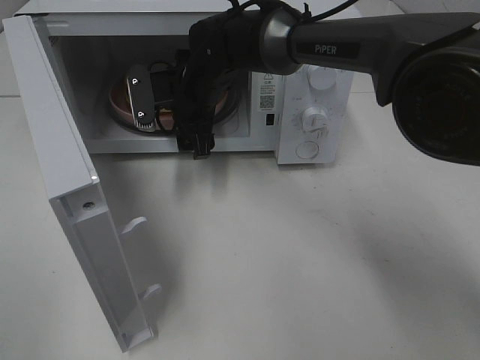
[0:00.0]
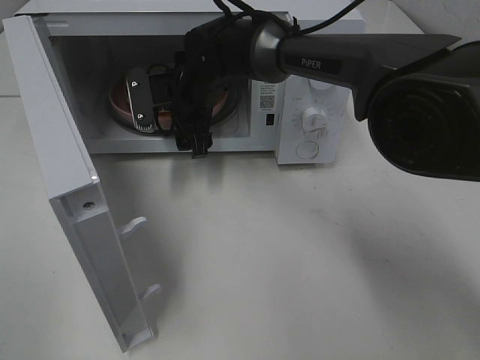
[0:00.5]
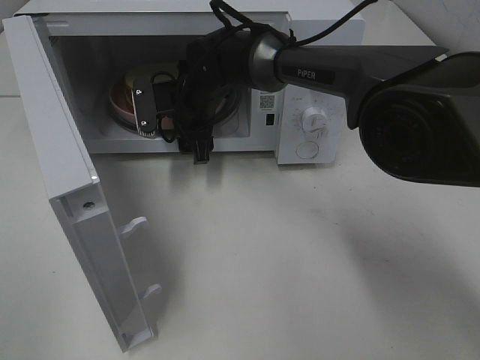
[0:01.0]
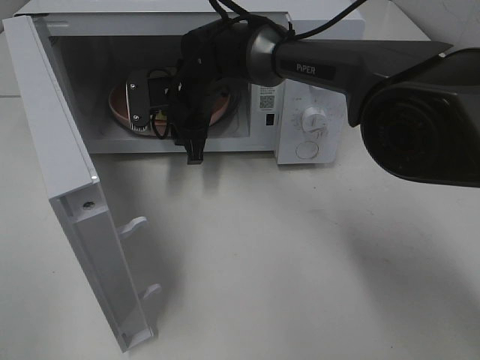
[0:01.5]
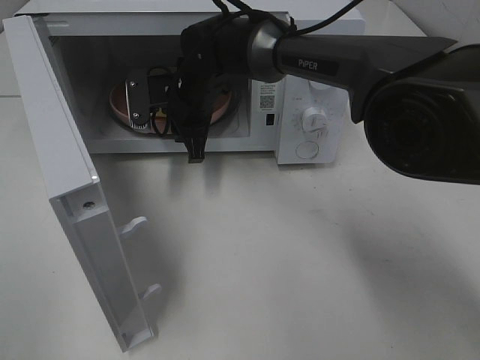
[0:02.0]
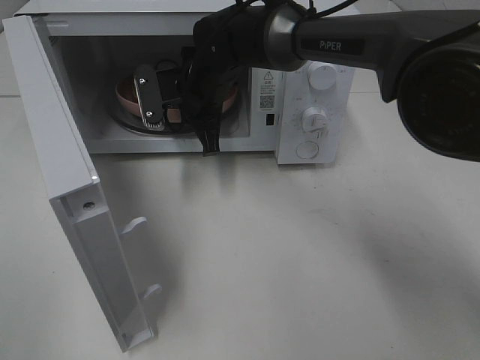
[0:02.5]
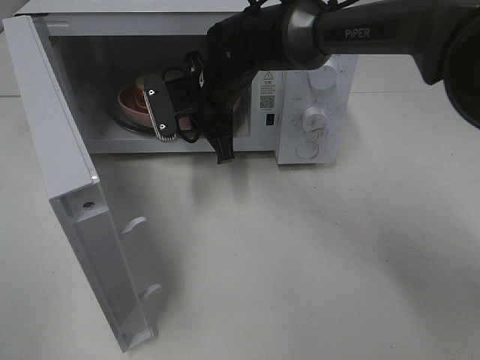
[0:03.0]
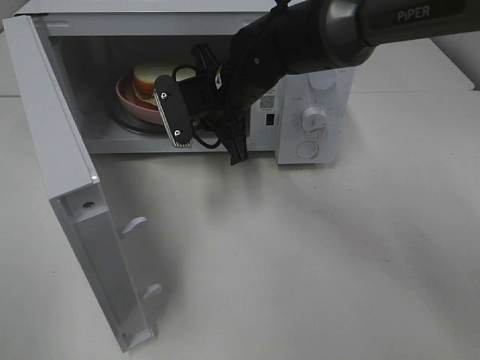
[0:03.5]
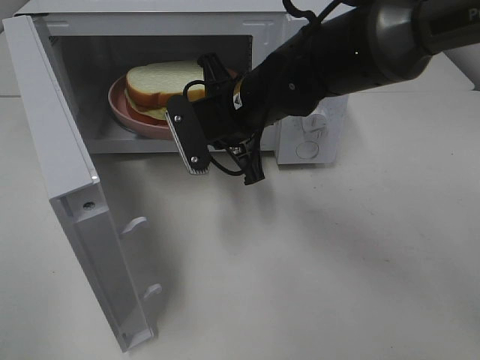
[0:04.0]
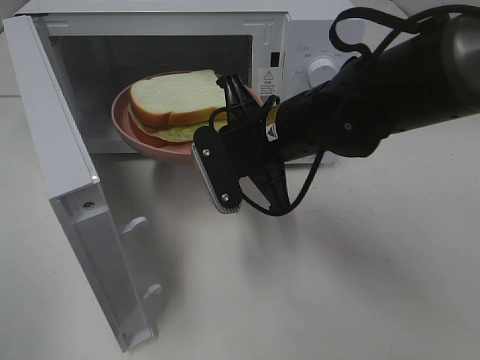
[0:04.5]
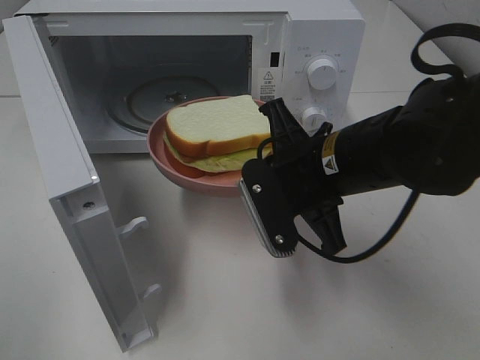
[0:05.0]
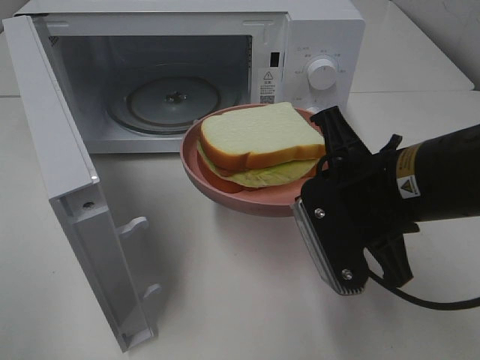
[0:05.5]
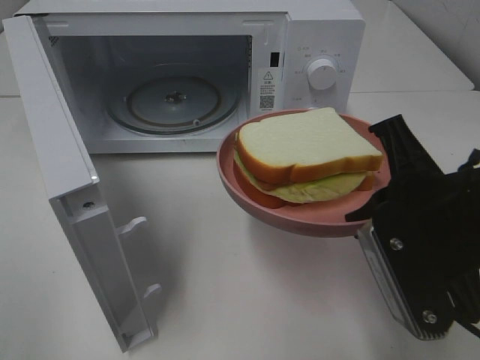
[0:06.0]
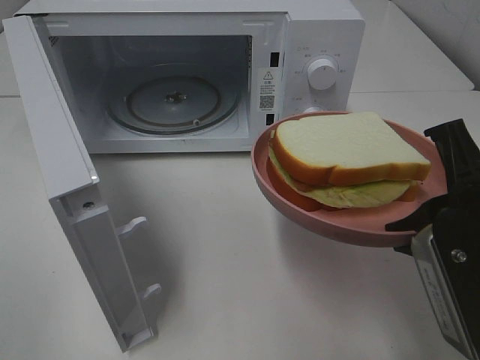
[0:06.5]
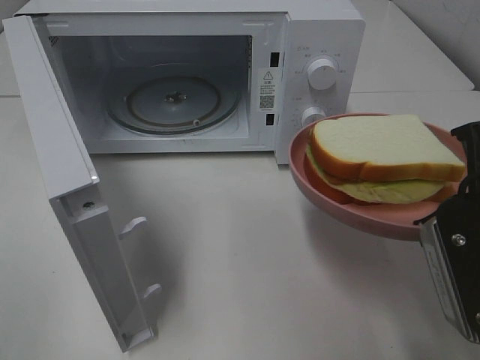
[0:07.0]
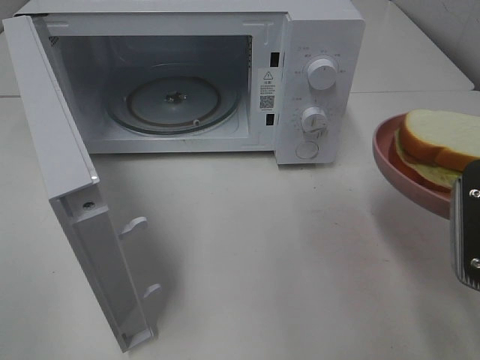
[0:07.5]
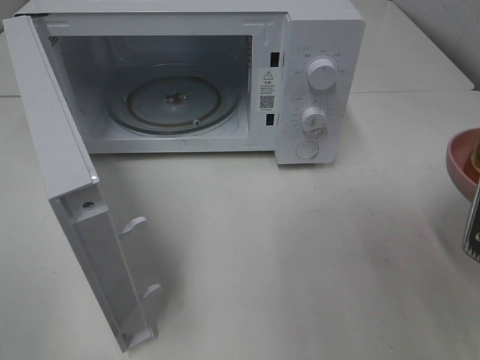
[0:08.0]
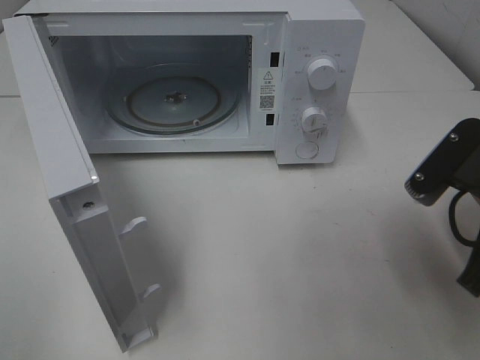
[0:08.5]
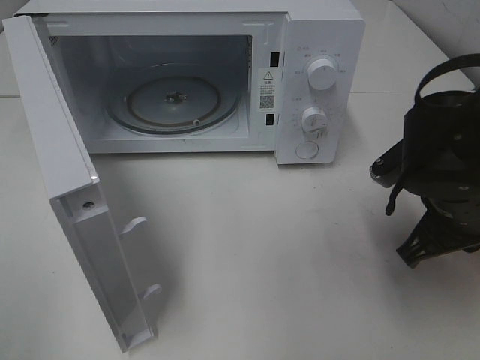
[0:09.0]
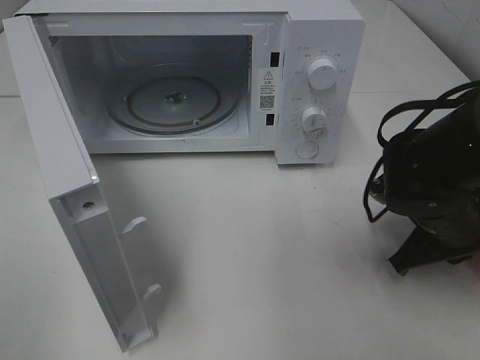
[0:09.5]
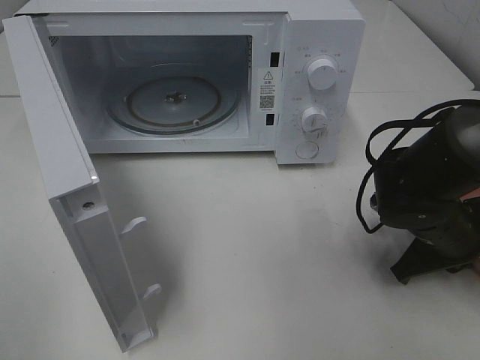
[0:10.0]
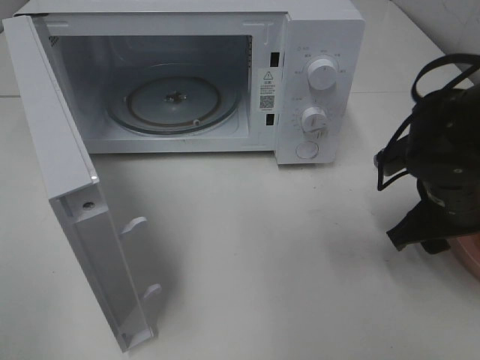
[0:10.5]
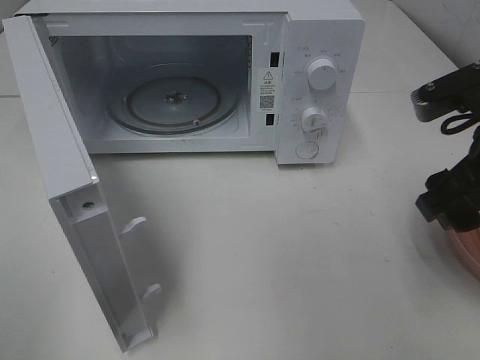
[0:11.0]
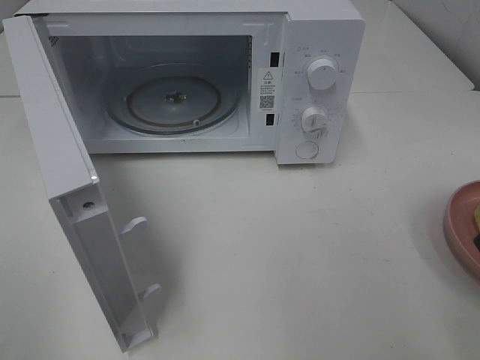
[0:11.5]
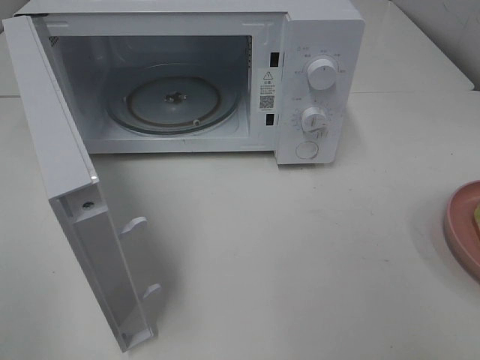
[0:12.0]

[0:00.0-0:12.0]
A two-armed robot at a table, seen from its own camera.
Task of the whole recording: Heat Sandwich.
Step, 0:01.5 to 0:10.5: Right hand: place the plate on the table.
0:00.0 to 0:02.0: The right gripper closes.
0:02.0 to 0:04.0: The right gripper heads backward and to the right, covering roughly 10 cm.
0:04.0 to 0:06.0: The right gripper goes some 25 cm backward and to the right.
0:06.0 to 0:08.0: The right gripper goes some 5 cm to the right.
0:08.0 to 0:10.0: The right gripper travels downward and forward by roughly 20 cm.
0:10.0 to 0:12.0: The right gripper goes some 30 cm upward and backward, and opens up.

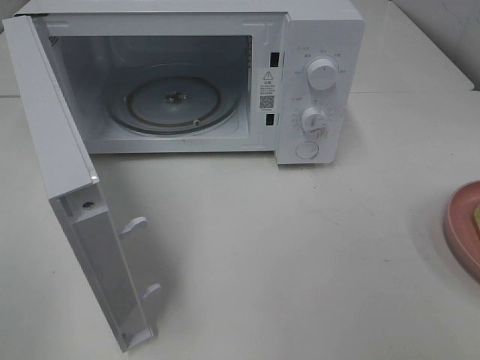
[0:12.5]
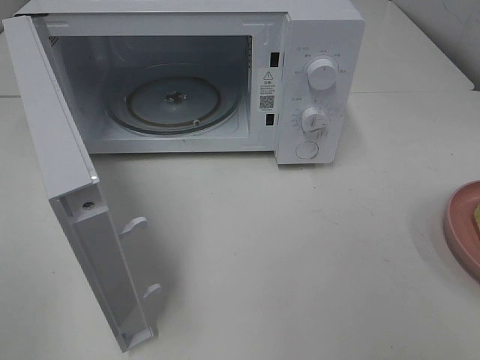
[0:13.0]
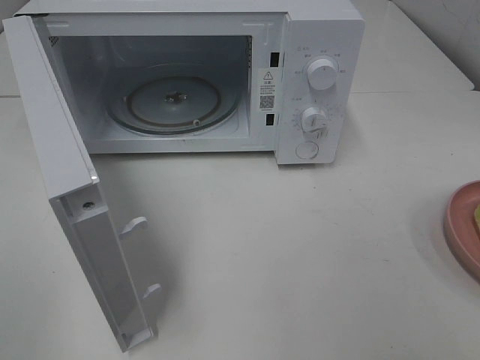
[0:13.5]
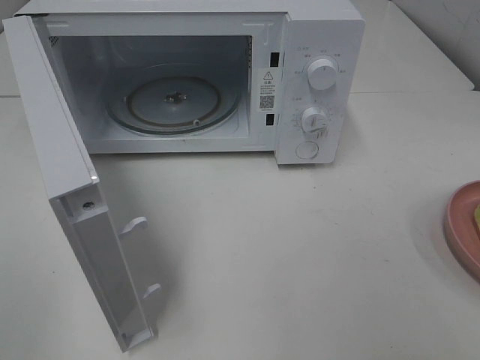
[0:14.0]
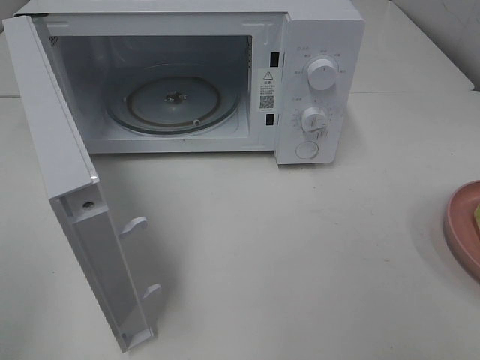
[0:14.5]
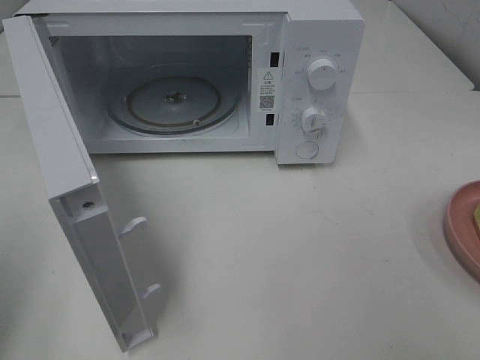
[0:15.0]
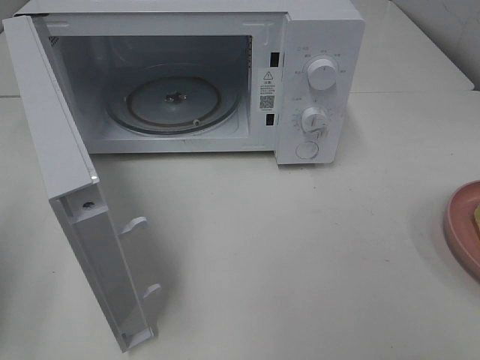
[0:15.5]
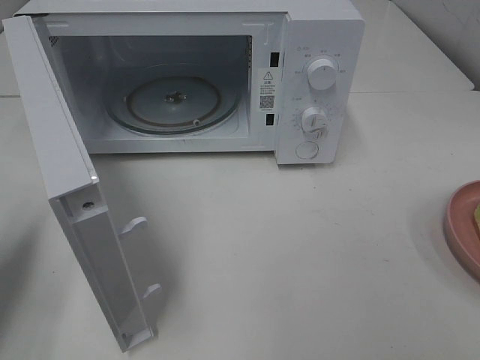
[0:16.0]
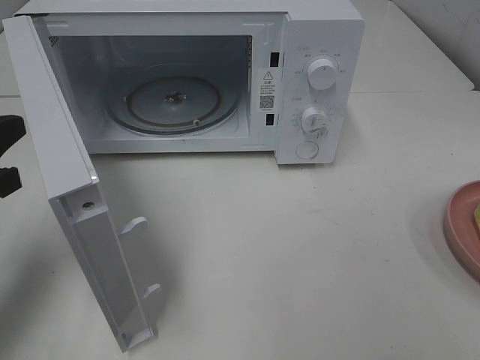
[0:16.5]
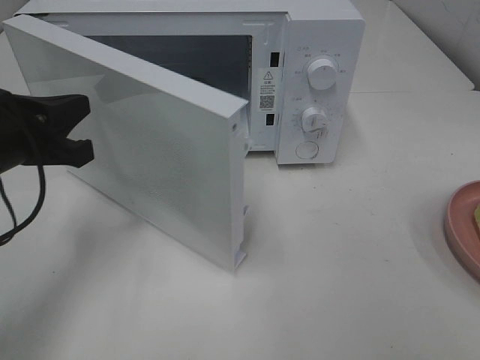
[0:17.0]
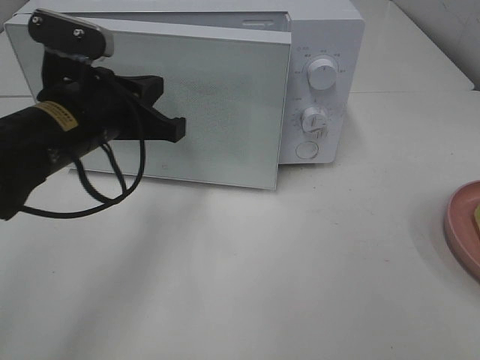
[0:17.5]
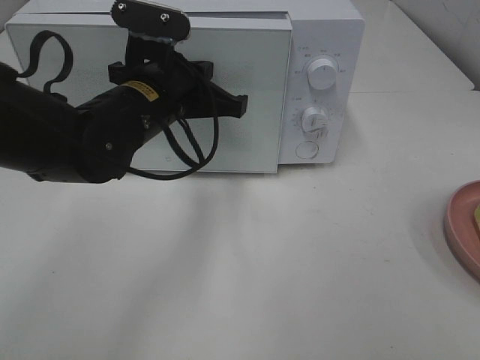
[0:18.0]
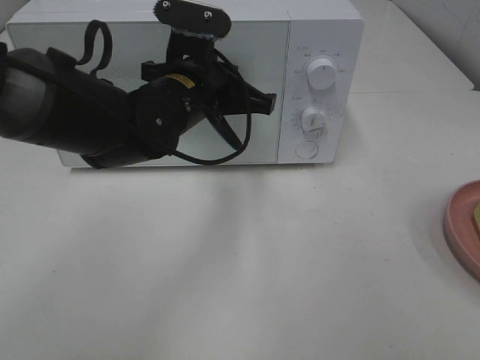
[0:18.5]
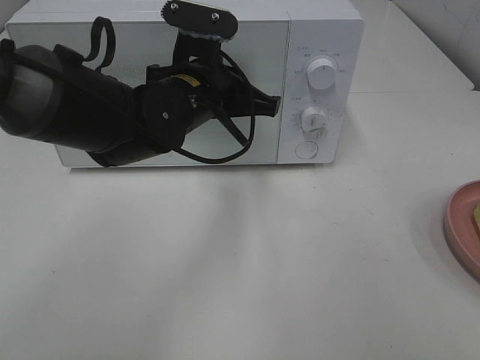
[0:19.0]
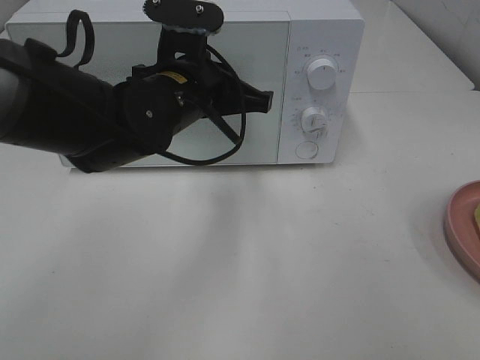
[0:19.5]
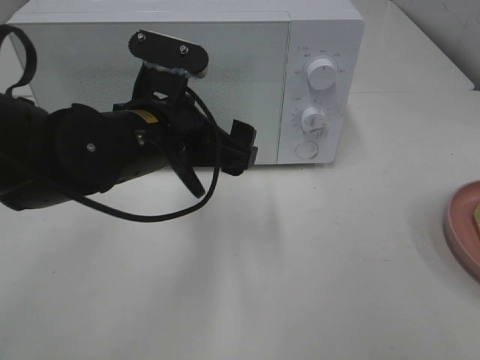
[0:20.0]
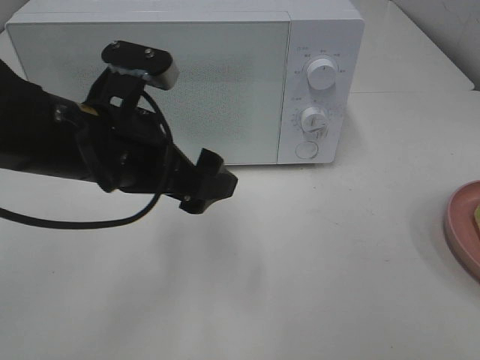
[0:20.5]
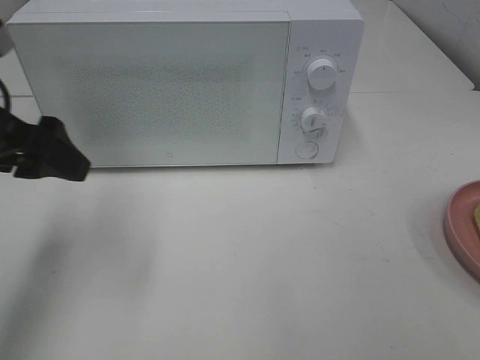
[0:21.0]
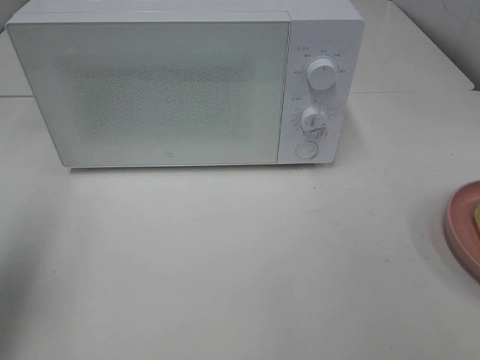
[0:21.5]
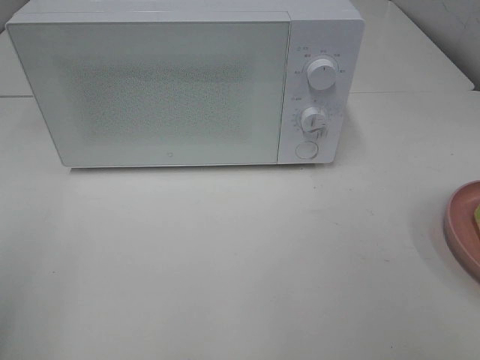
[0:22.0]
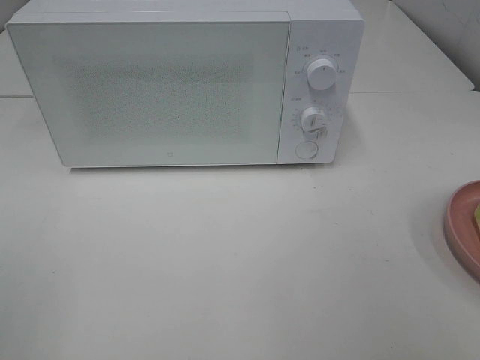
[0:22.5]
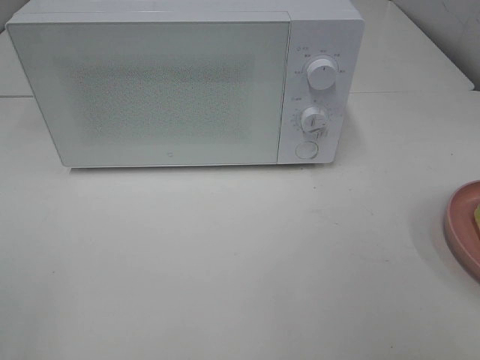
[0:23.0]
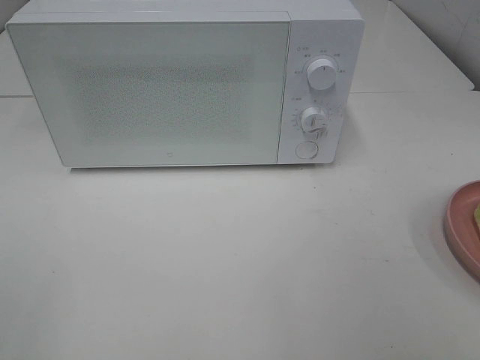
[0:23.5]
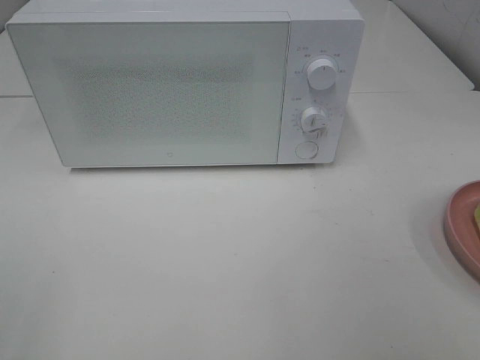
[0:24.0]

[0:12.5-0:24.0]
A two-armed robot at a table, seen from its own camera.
Task of the whole recording: Heat Sandwich.
Step, 0:12.5 to 0:19.5: Left hand: close the microwave door.
0:14.5 to 0:16.5: The left gripper moves forward and downward, roughly 20 cm, and closes its fingers.
0:16.5 to 0:18.5: The left gripper heads to the right and forward, covering about 25 cm.
0:18.5 to 0:20.0: The left gripper moves backward, about 10 cm, and opens its fingers.
0:20.0 to 0:22.0: The left gripper moves to the left and backward, about 30 cm.

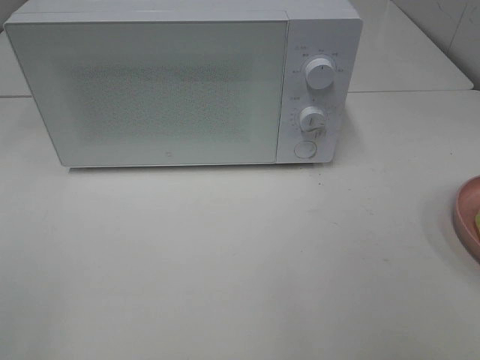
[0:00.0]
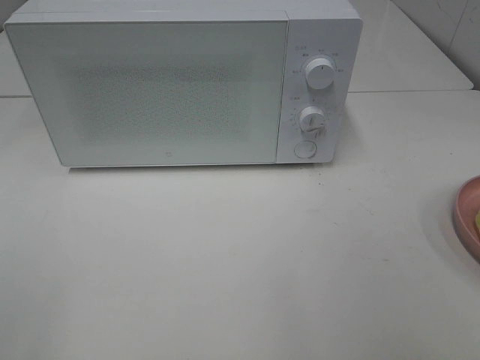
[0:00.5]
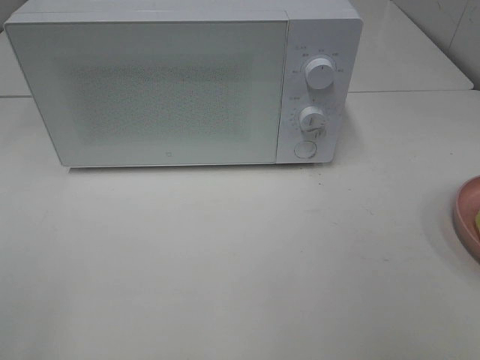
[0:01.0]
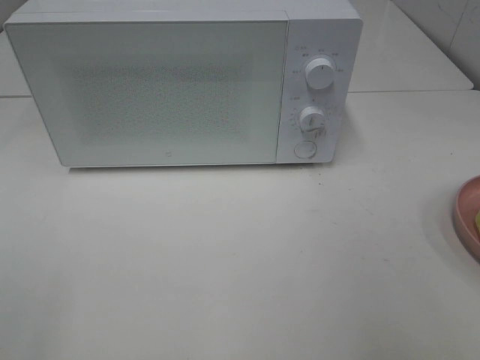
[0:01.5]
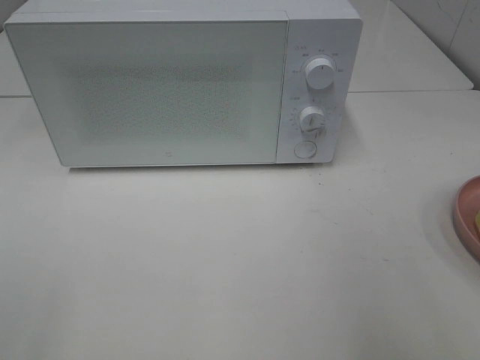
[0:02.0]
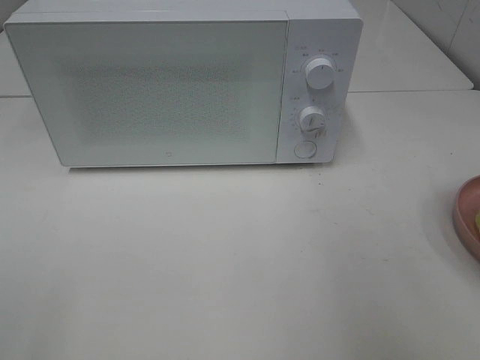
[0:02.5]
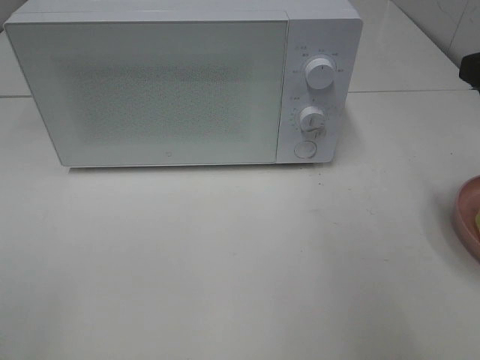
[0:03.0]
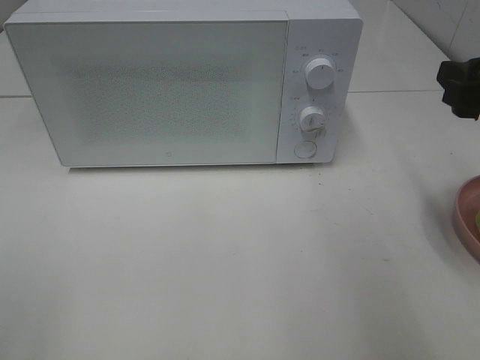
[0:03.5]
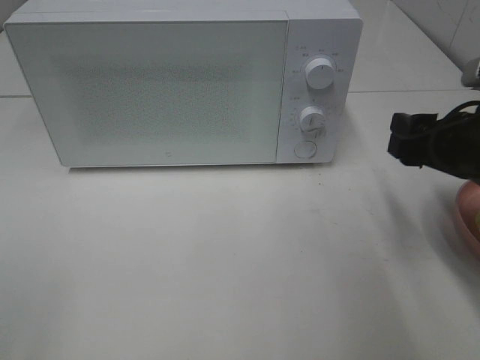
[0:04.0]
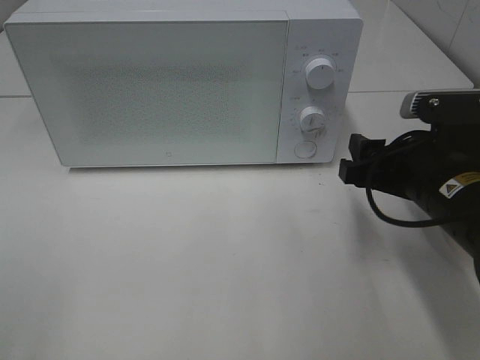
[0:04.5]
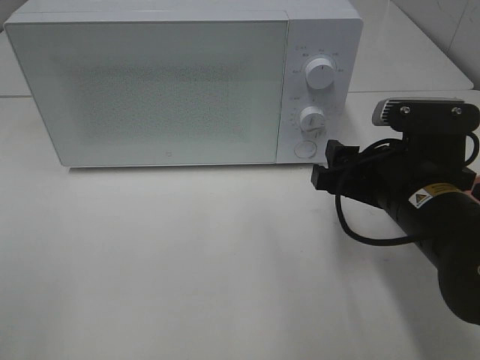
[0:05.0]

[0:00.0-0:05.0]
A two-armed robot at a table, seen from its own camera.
Task of the whole recording: Heat Sandwich.
0:02.5 to 0:05.0: The right gripper travels downward and to the left by roughly 20 cm.
